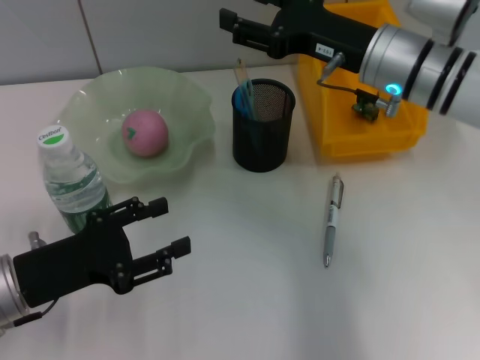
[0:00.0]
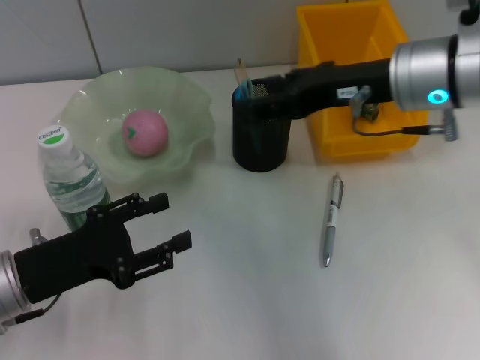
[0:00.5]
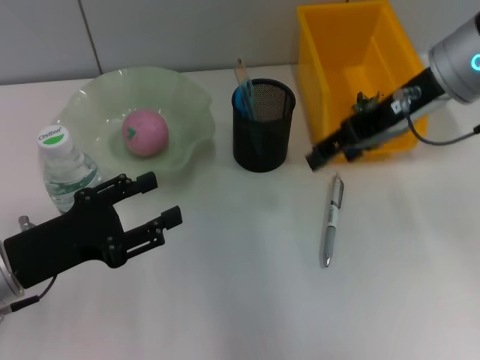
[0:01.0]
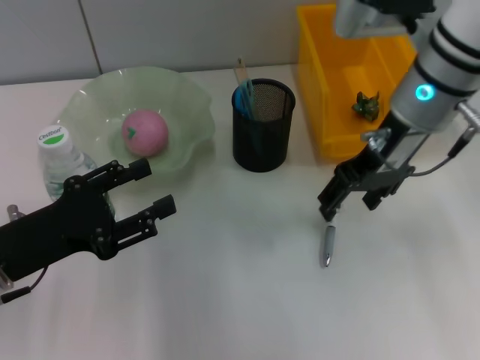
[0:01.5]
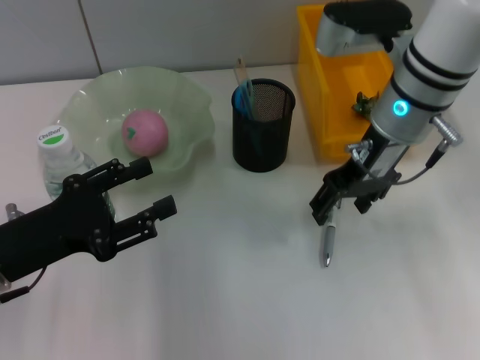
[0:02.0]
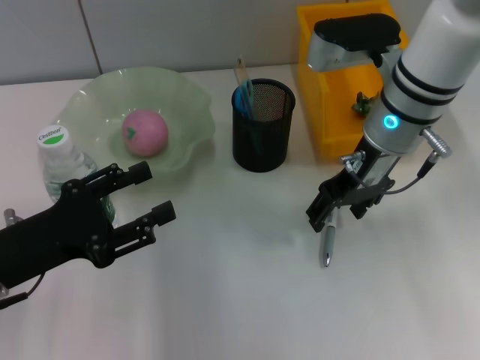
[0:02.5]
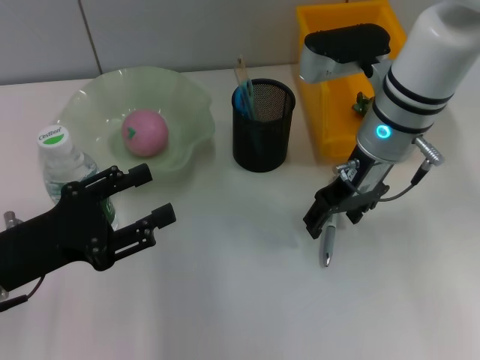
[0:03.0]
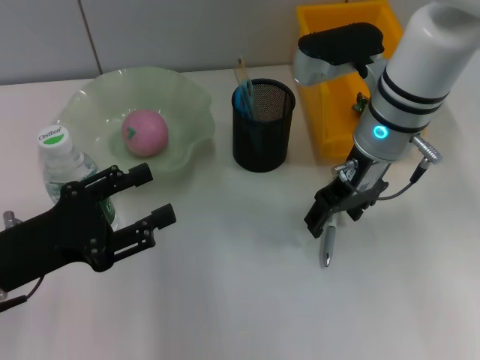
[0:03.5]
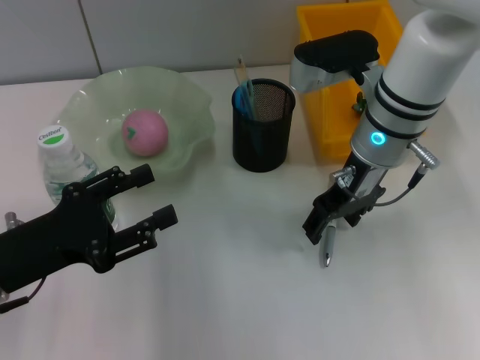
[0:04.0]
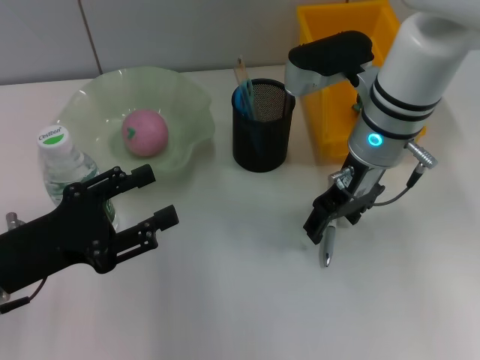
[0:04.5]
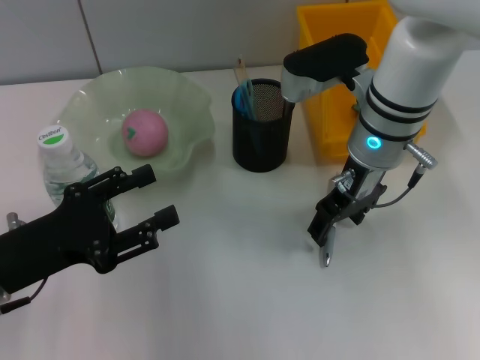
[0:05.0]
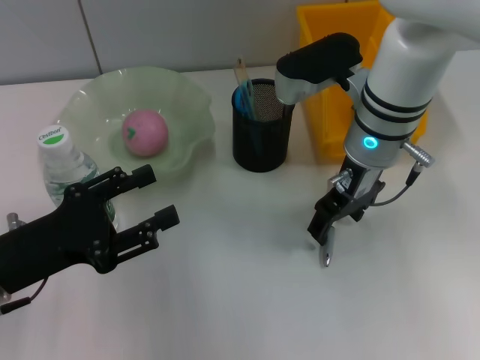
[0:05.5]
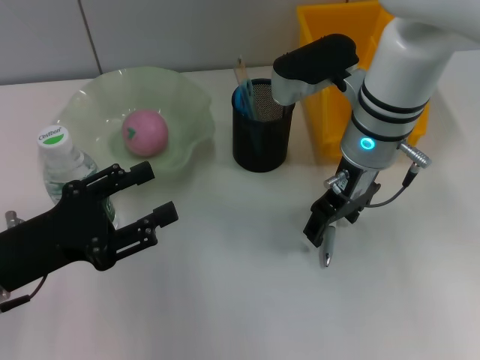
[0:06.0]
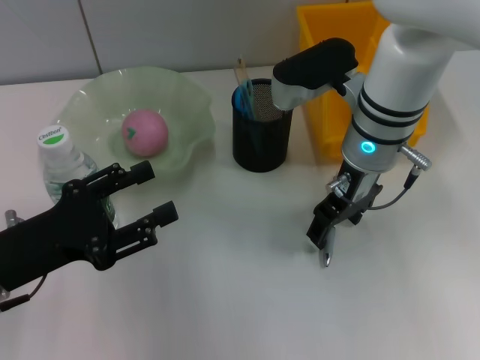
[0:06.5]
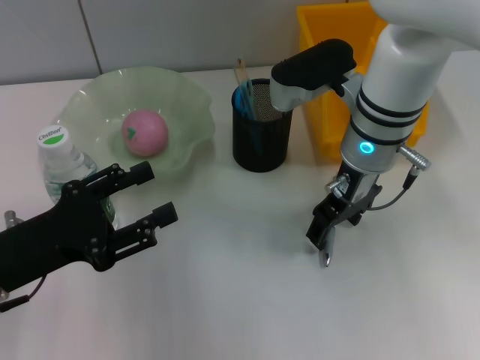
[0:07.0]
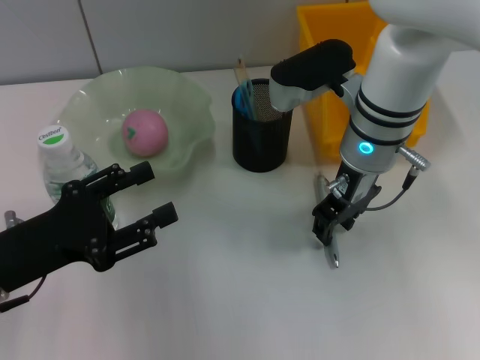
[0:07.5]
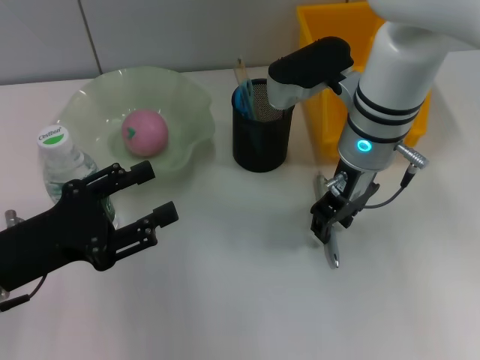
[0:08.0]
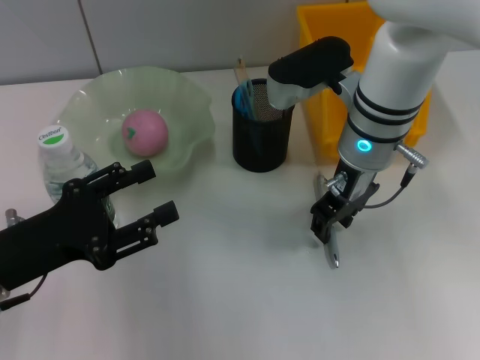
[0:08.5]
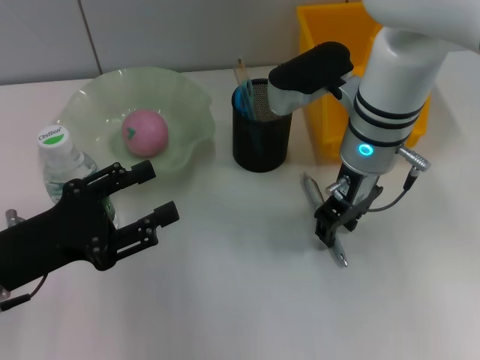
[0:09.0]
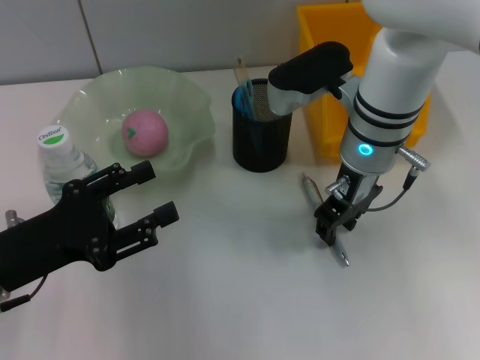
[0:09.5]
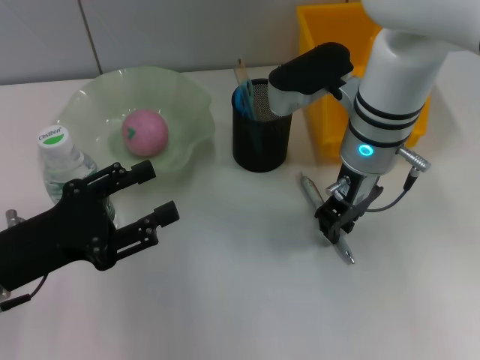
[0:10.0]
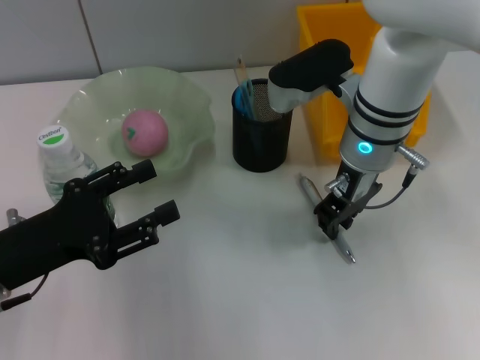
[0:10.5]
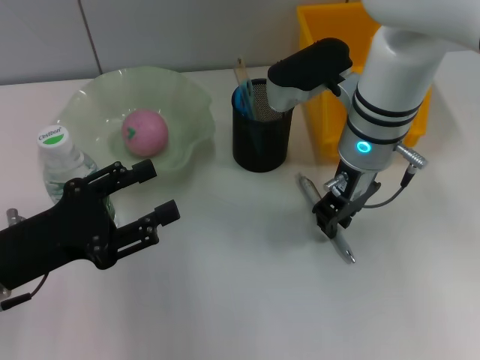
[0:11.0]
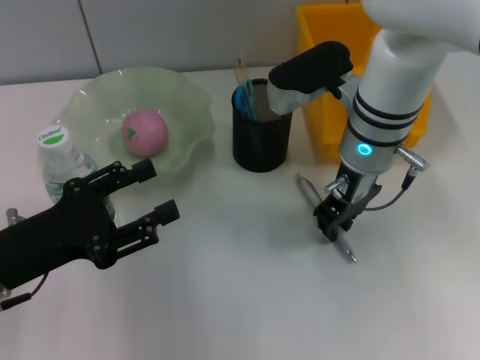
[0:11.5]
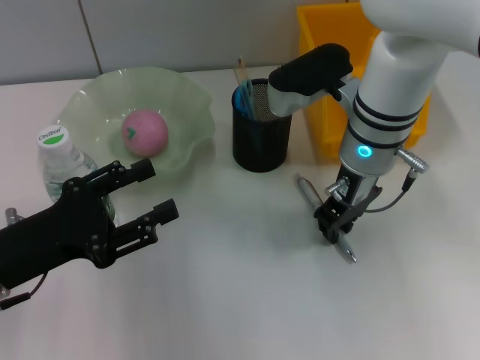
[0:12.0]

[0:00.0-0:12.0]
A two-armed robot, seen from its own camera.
0:02.0 to 0:06.0: The grippers make only small movements.
0:06.0 to 0:08.0: The right gripper closes its fingers.
0:08.0 to 0:12.0: The two grippers keep their place.

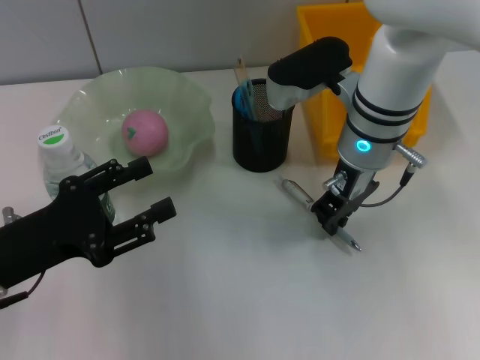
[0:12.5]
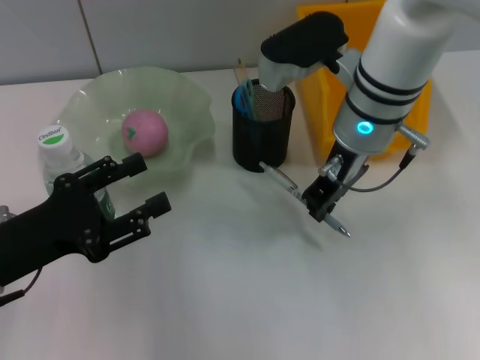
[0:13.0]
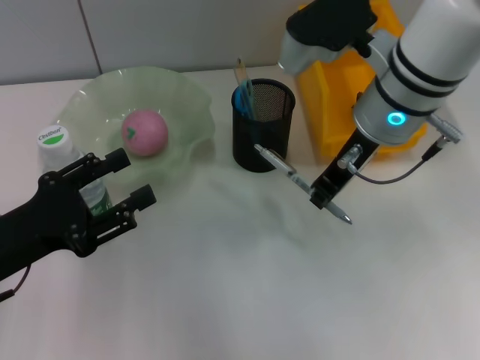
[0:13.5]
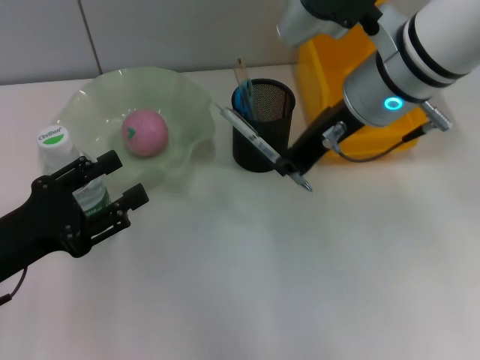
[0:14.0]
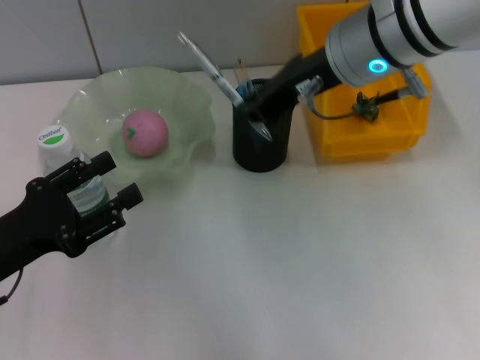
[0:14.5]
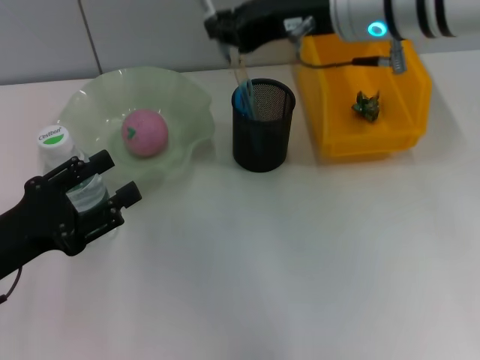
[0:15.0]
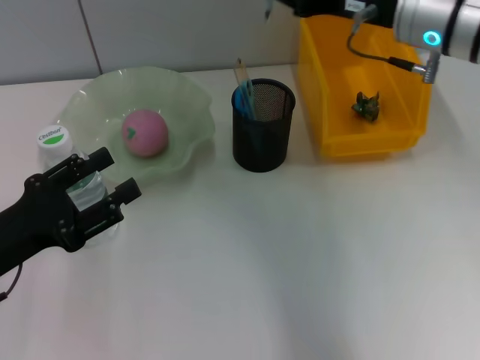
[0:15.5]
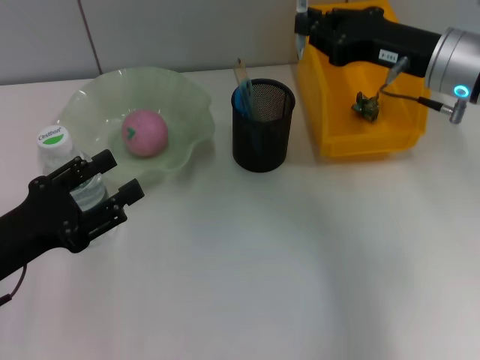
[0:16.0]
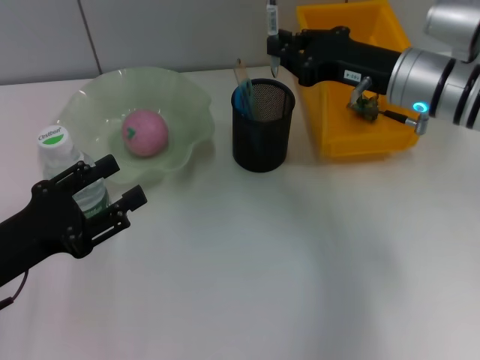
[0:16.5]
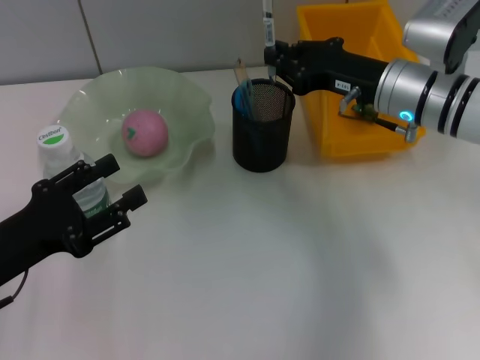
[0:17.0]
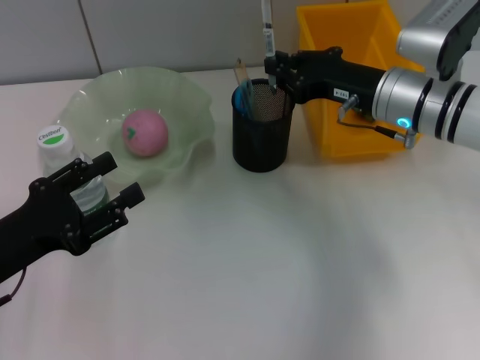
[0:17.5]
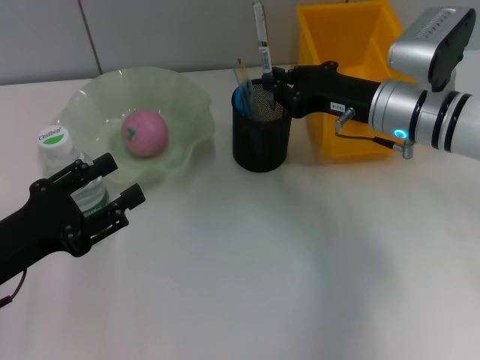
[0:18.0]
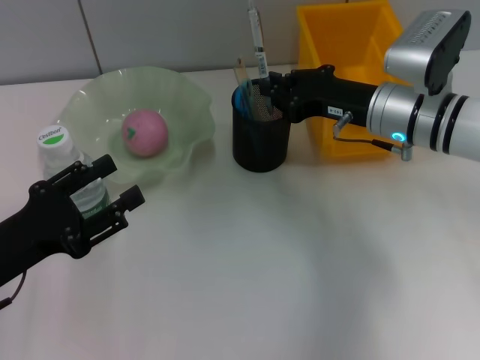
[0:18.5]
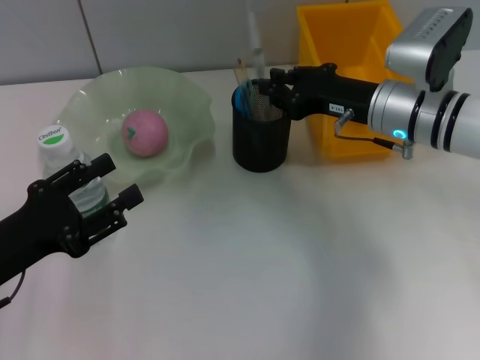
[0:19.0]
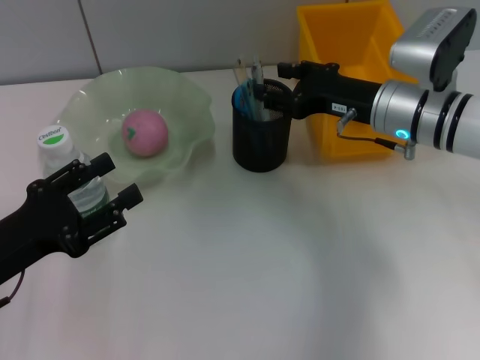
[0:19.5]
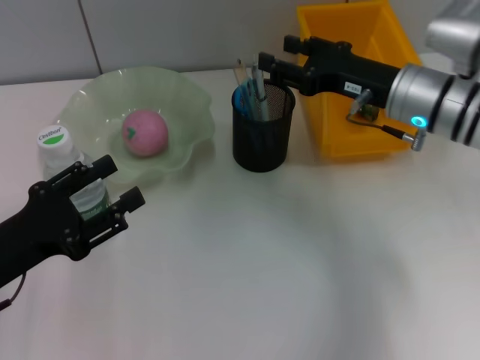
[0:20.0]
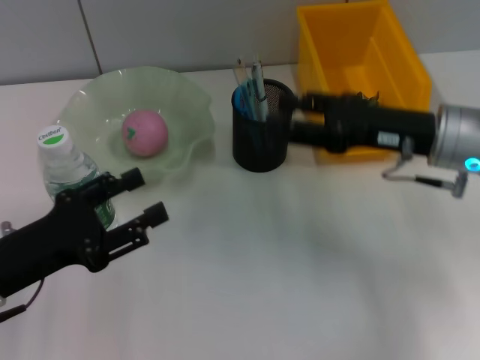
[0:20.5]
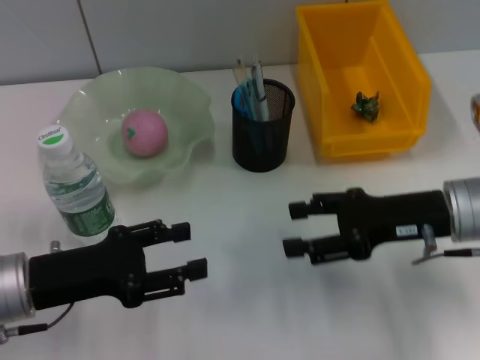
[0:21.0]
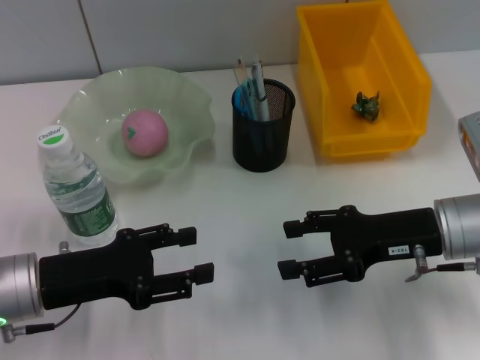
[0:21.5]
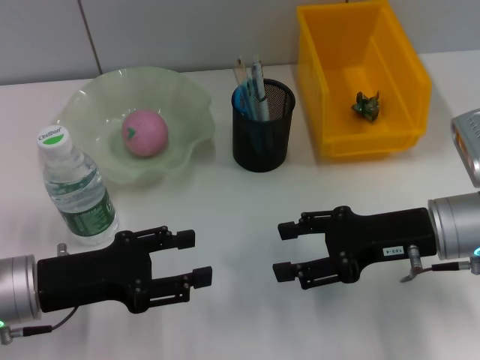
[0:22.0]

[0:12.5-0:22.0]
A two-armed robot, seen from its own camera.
Step, 0:12.5 to 0:19.5: Place the gray spring-action pen into the pen holder with the right hand.
0:12.5 to 0:14.5: The right gripper is displaced upward by about 10 cm.
0:14.5 to 0:16.5: The right gripper shifts roughly 15 cm downward and to the right.
0:16.5 to 0:18.0: The grippers make only small movements.
0:18.0 to 0:20.0: The right gripper opens.
0:20.0 to 0:22.0: The right gripper travels backward by roughly 10 cm.

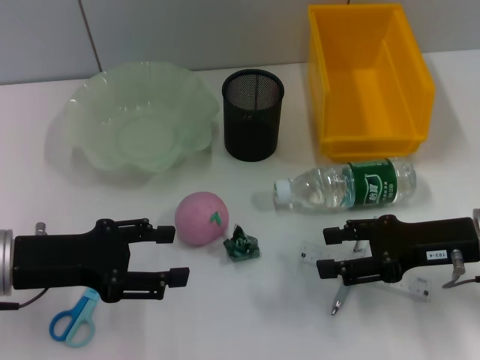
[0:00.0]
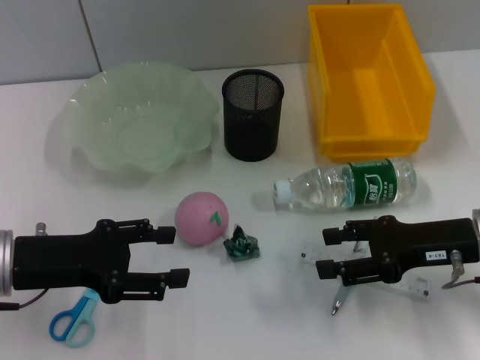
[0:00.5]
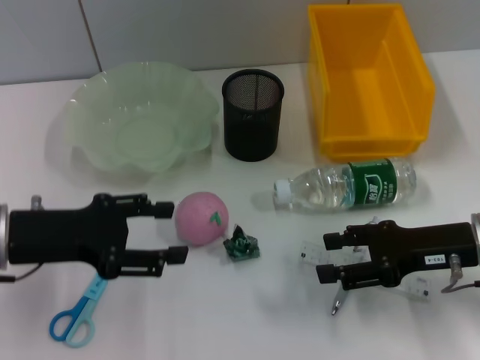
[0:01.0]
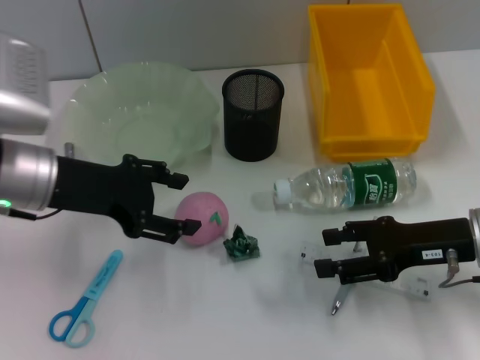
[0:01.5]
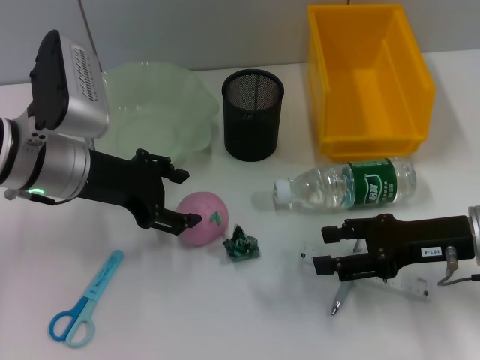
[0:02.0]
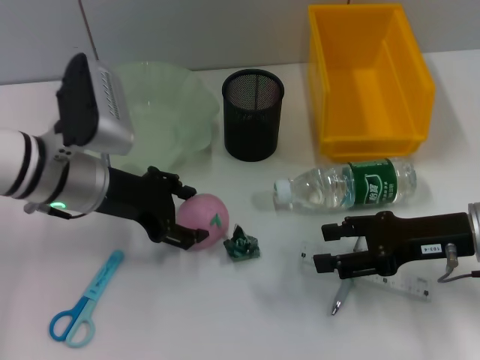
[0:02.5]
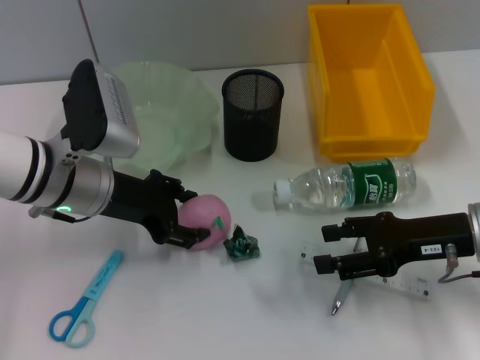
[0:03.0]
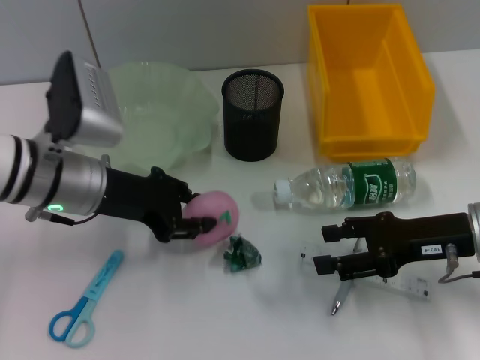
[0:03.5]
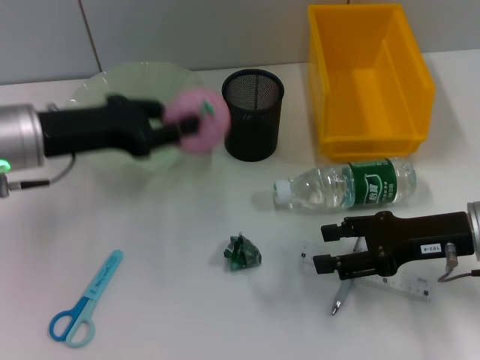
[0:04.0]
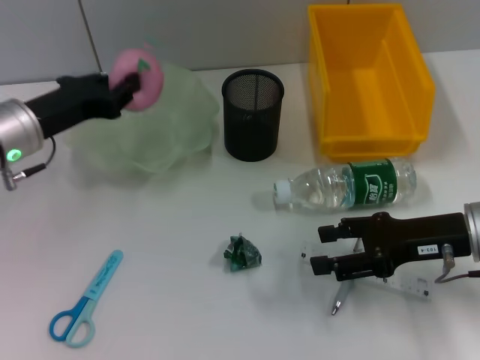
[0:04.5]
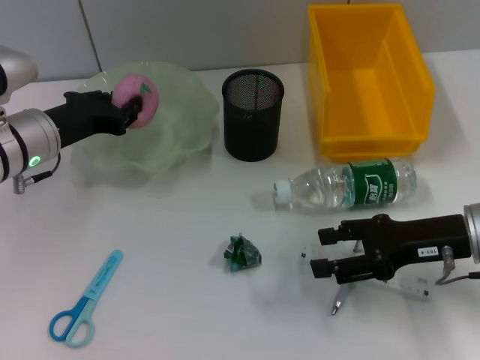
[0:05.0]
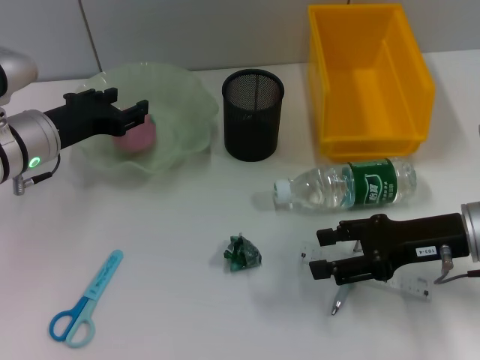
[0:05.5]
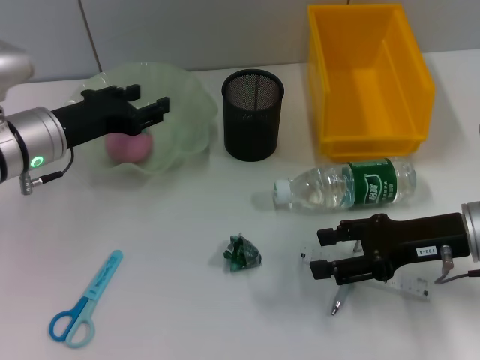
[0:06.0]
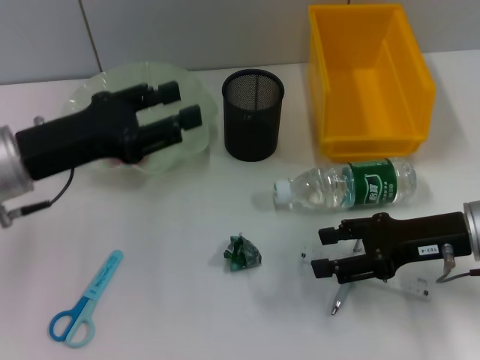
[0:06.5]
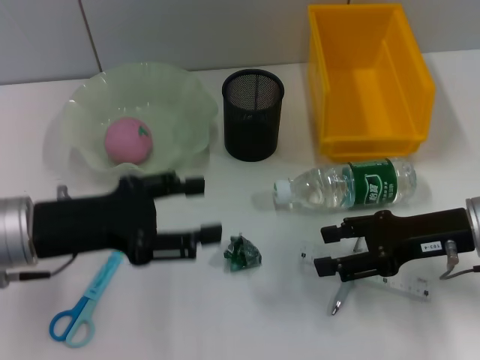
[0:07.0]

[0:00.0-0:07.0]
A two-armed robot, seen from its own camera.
Step, 0:00.0 to 0:03.0: Grab the peach with the left hand.
Step, 0:03.5 to 0:05.5: Place the peach into the fruit bowl with the left hand.
0:00.0 to 0:02.0: The left gripper travels forward and to the right by about 10 cm.
0:02.0 to 0:03.5: The left gripper closes its fingers.
0:03.5 to 0:05.0: The left gripper ends up approximately 5 cm from where it was.
0:05.0 to 0:07.0: The left gripper is displaced backward by some 10 cm, and opens up.
